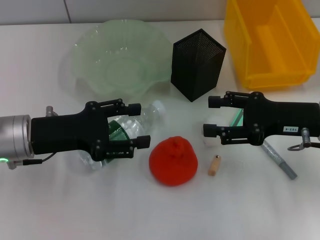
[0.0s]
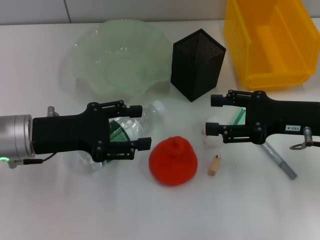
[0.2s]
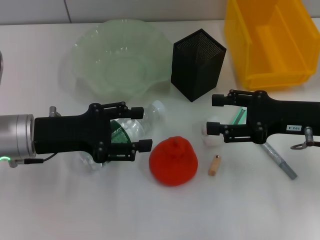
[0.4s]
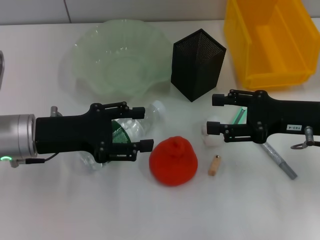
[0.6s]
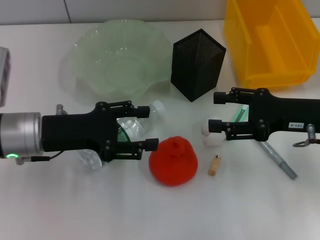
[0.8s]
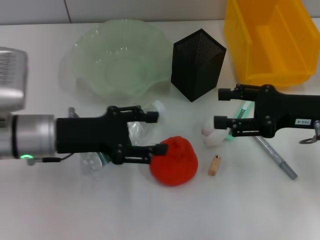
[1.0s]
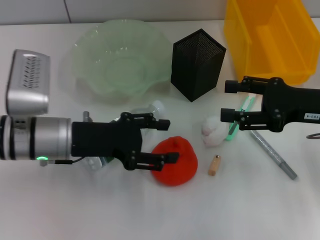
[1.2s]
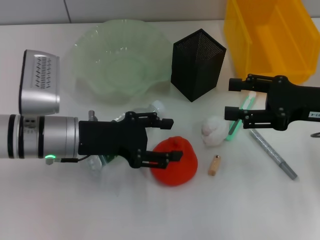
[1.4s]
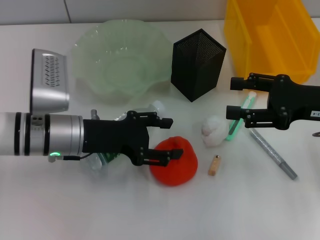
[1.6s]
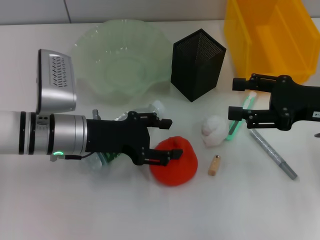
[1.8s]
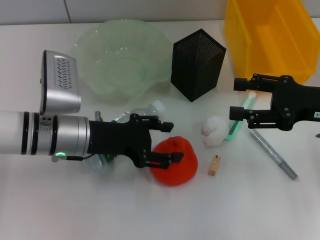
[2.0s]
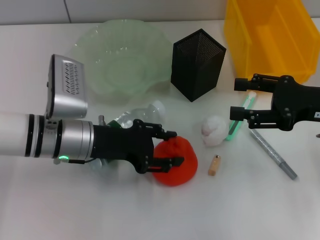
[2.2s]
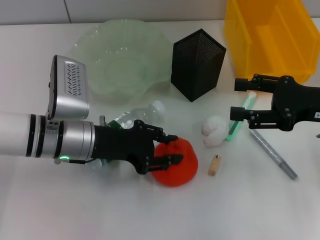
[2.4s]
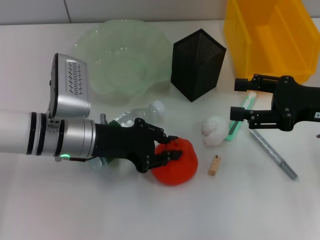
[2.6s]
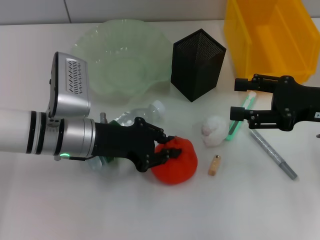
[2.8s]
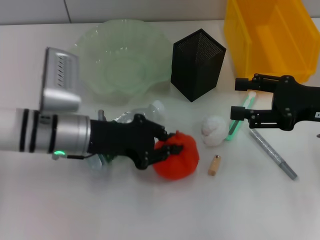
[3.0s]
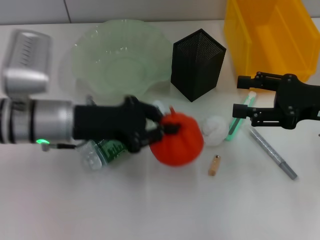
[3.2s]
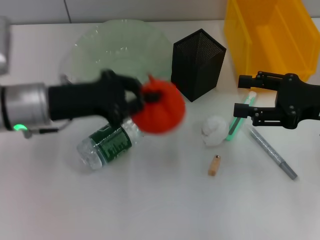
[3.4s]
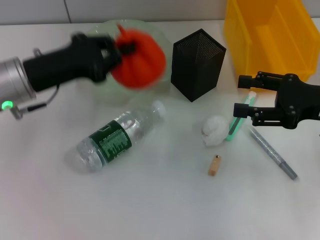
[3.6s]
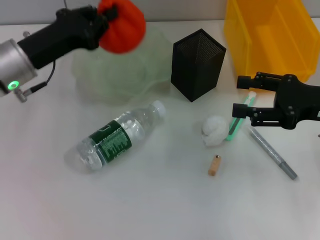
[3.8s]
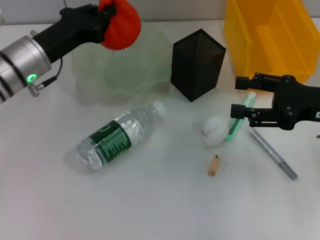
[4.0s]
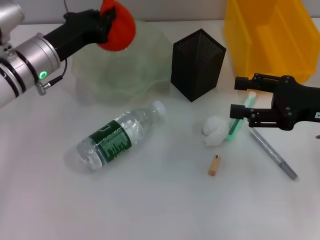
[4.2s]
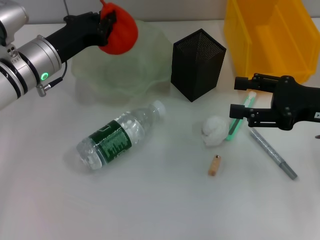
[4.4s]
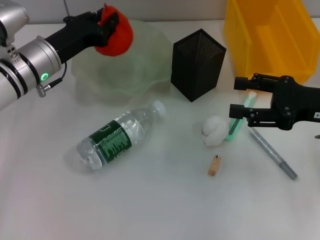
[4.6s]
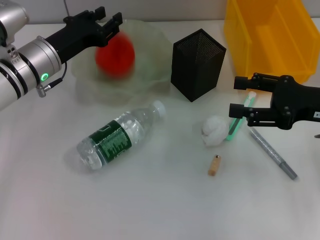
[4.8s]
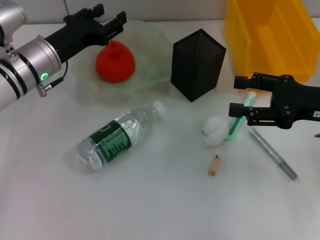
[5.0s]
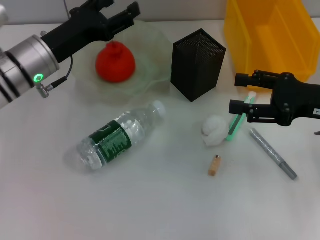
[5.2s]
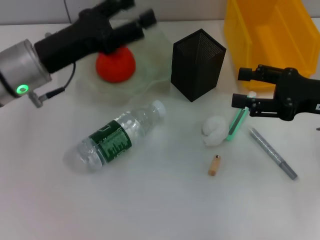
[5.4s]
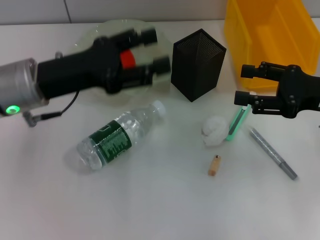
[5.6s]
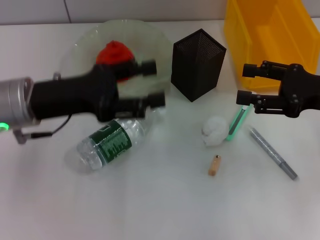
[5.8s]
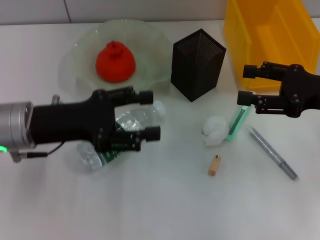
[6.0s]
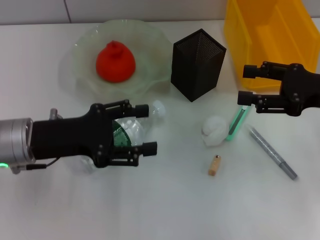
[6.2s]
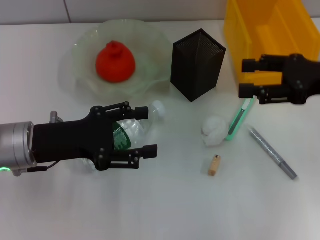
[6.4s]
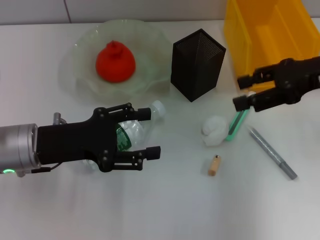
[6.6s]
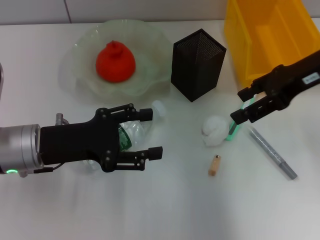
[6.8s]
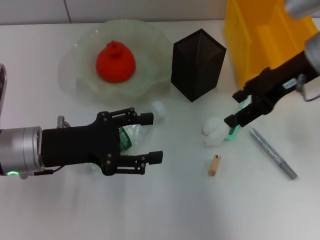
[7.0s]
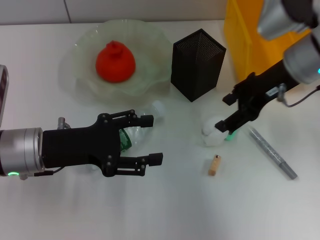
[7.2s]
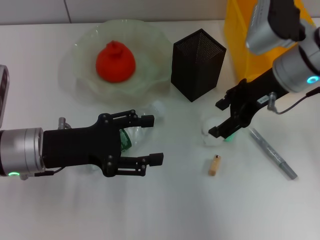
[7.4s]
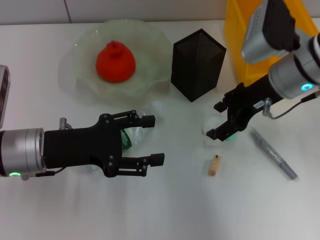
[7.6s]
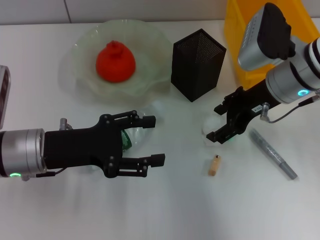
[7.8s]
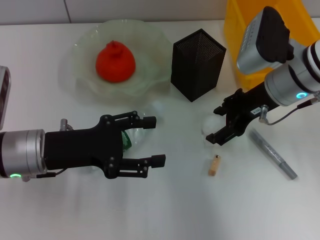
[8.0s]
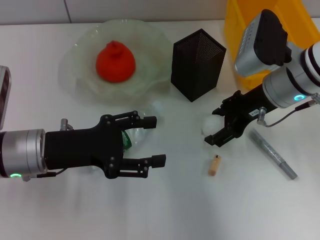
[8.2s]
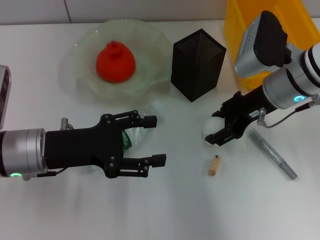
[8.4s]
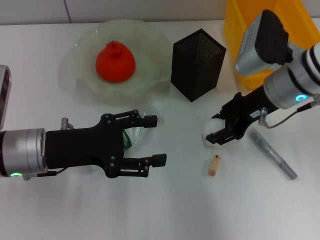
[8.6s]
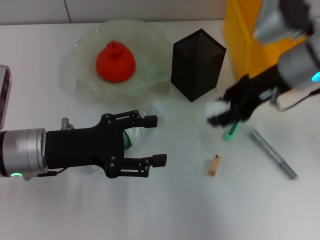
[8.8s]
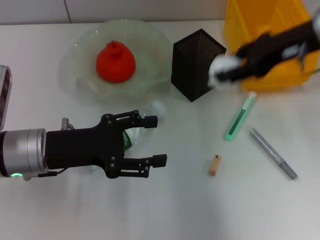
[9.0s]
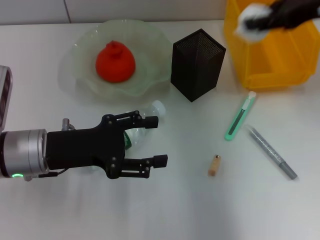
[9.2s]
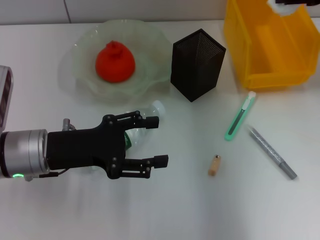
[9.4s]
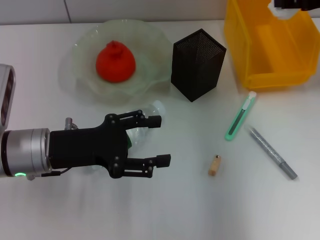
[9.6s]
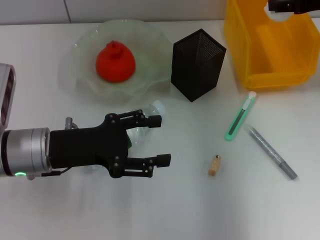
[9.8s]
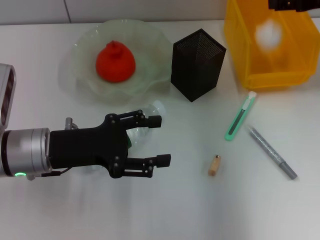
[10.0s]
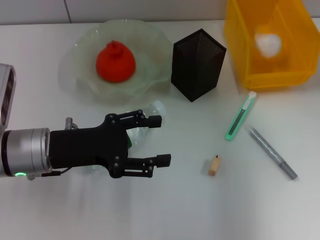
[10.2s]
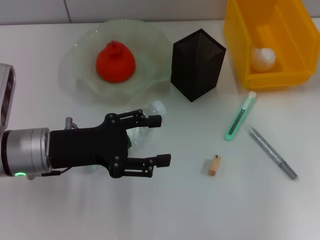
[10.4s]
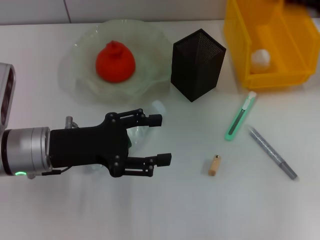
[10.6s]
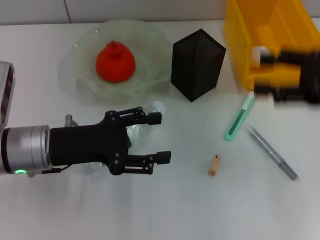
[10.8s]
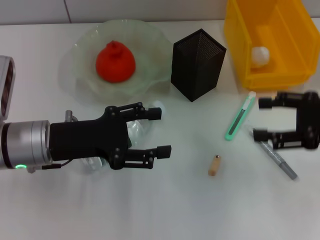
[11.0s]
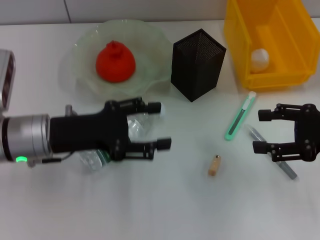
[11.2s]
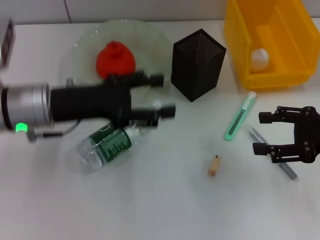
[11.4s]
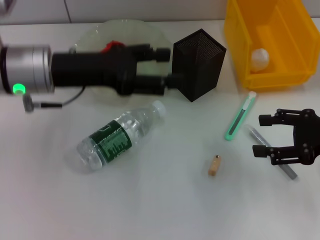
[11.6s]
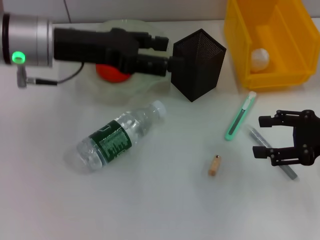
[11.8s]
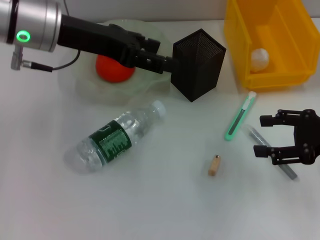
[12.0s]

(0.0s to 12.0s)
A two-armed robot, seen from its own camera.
Step, 0.0s - 2.8s: Grab the orange with the left hand.
Step, 3.0s - 4.8s: Place the orange into the fruit bowl with the left hand.
Step, 5.0s - 8.4s: Grab the paper ball with the right hand.
Step, 8.6s - 10.2s: Place the paper ball into the trash can with the right hand.
0.0s - 1.6s: The left gripper is displaced to the right by roughly 5 cm.
1.6s - 3.0s: The left gripper closes its fingers.
3.0s - 4.4s: The left gripper is displaced forward by about 10 cm.
4.4s - 6.0s: The left gripper is displaced backward by some 10 cm, and opens.
6.0s - 7.6s: The right gripper moves to the left and forward, approximately 15 cm.
7.6s - 9.0s: The right gripper goes some 10 cm upward.
9.0s - 10.4s: The right gripper shifts approximately 10 cm to the right, and opens its fingers.
10.4s - 12.0s: The right gripper heads downward and backward, covering about 15 cm; the left gripper is displaced upward and forward by some 15 cm.

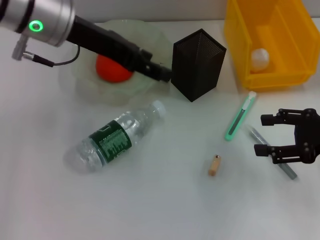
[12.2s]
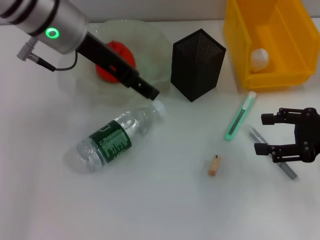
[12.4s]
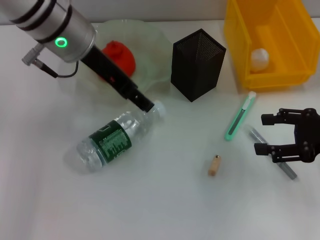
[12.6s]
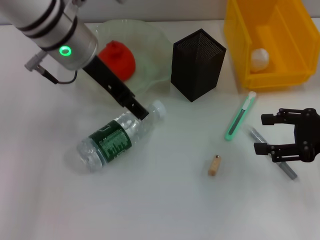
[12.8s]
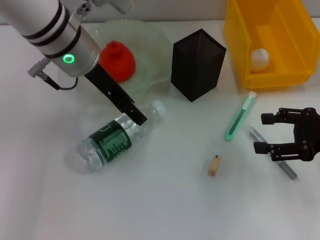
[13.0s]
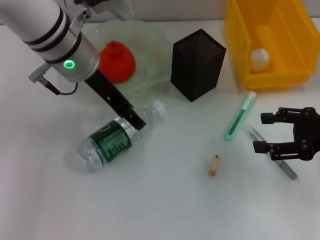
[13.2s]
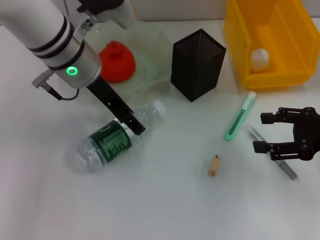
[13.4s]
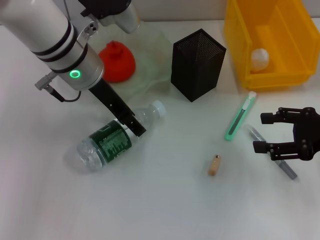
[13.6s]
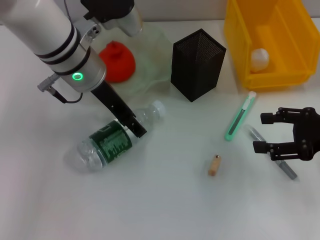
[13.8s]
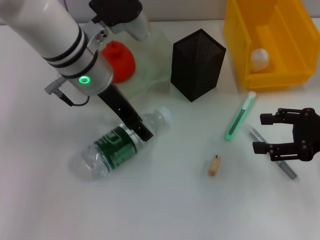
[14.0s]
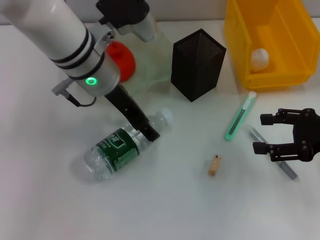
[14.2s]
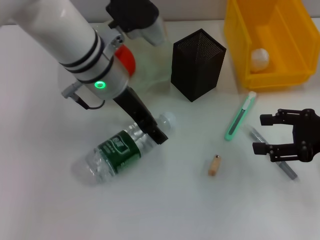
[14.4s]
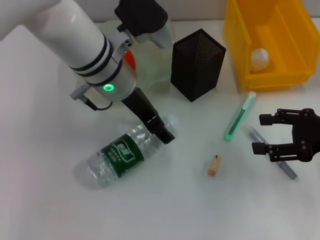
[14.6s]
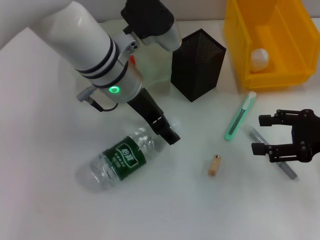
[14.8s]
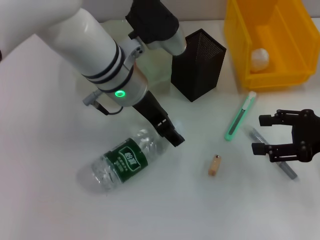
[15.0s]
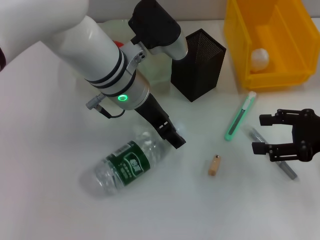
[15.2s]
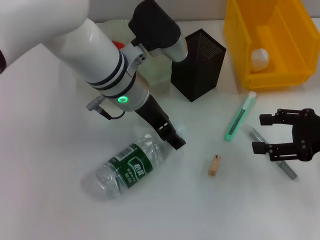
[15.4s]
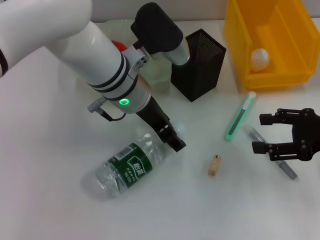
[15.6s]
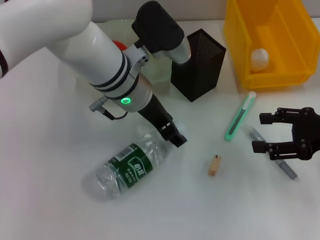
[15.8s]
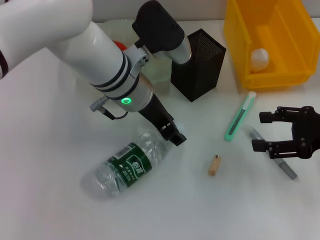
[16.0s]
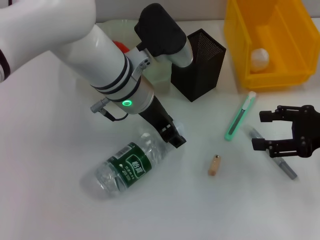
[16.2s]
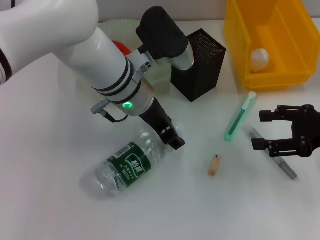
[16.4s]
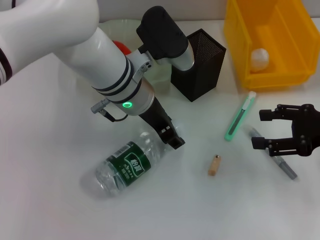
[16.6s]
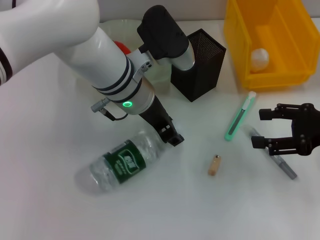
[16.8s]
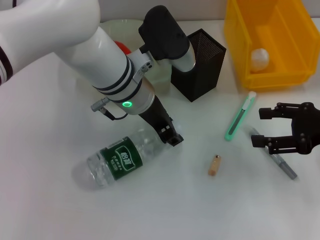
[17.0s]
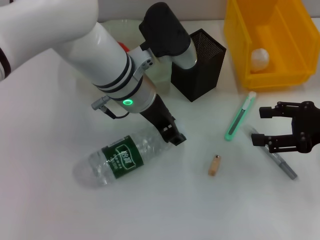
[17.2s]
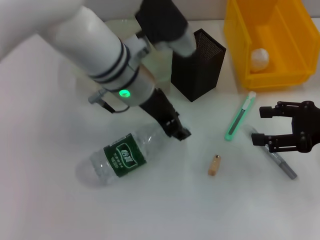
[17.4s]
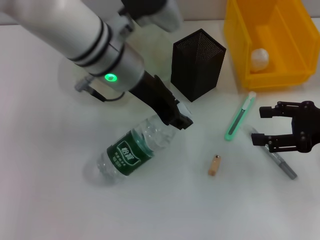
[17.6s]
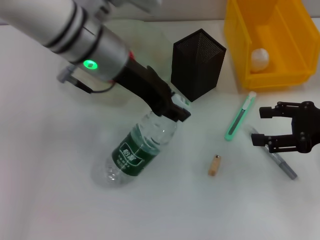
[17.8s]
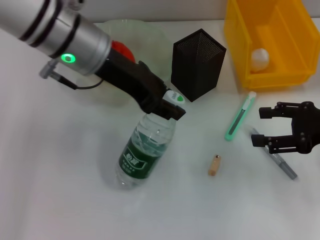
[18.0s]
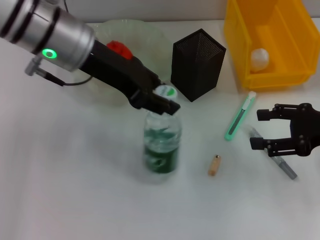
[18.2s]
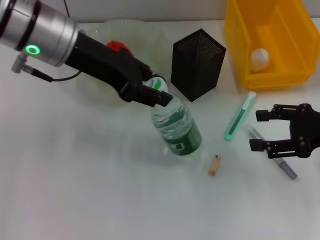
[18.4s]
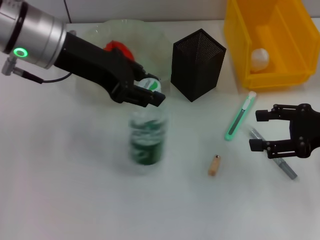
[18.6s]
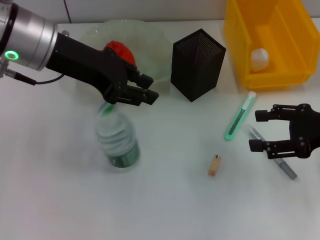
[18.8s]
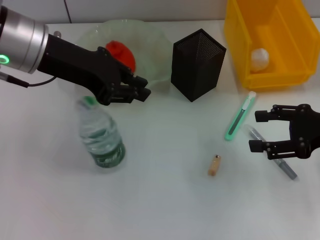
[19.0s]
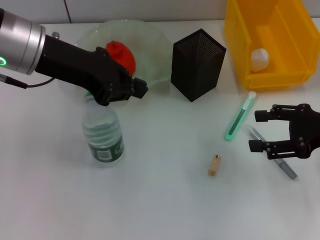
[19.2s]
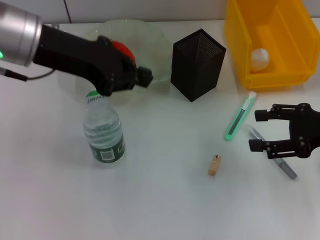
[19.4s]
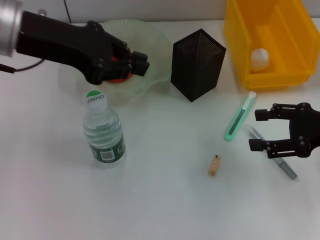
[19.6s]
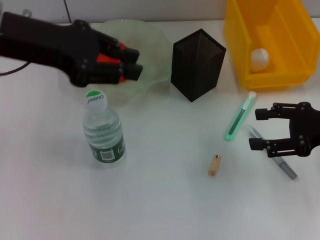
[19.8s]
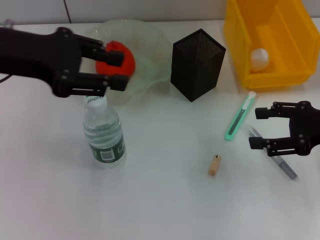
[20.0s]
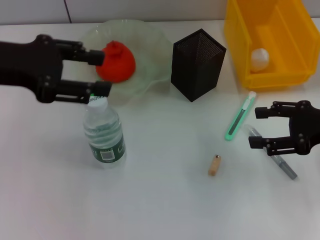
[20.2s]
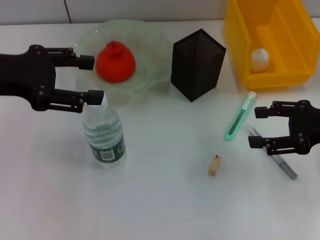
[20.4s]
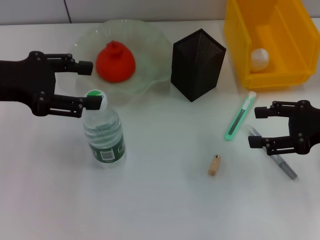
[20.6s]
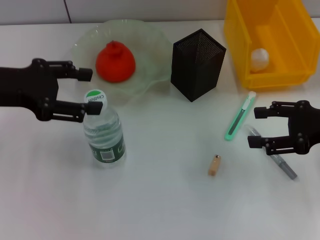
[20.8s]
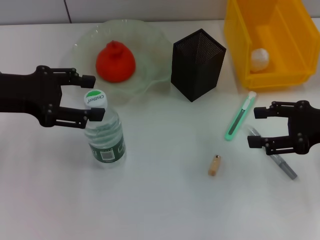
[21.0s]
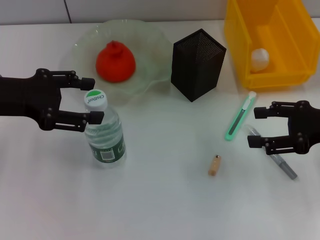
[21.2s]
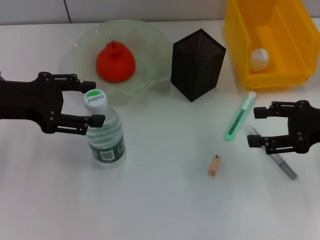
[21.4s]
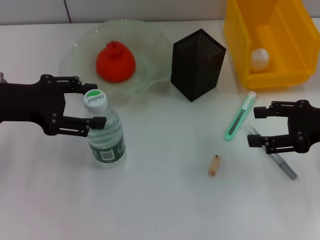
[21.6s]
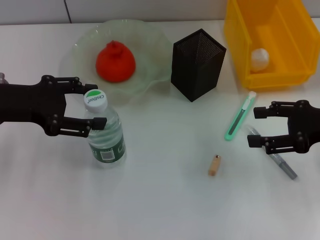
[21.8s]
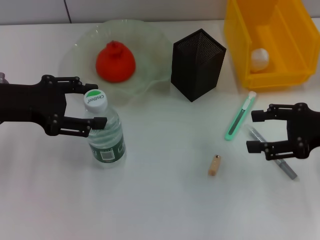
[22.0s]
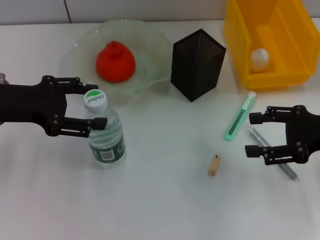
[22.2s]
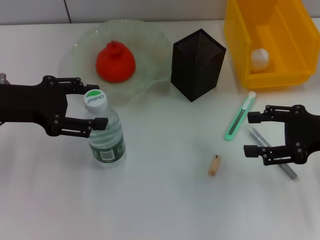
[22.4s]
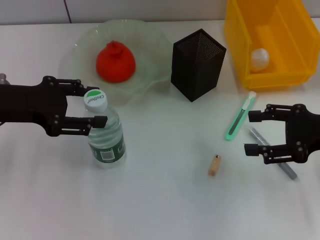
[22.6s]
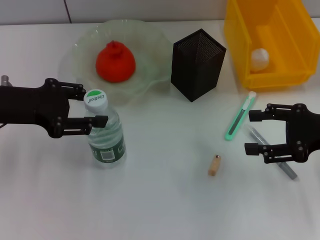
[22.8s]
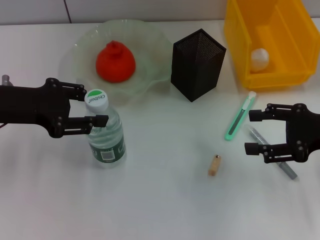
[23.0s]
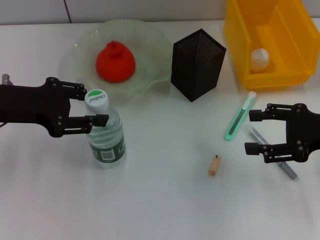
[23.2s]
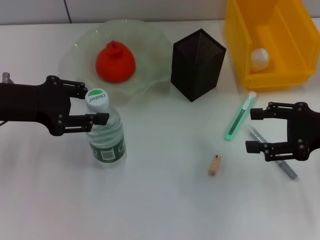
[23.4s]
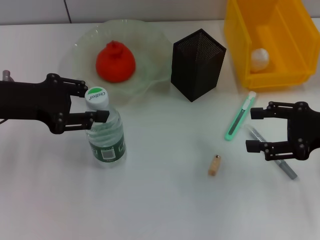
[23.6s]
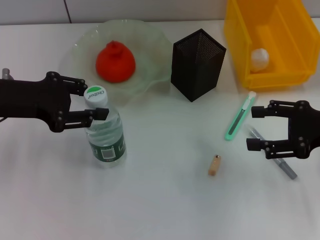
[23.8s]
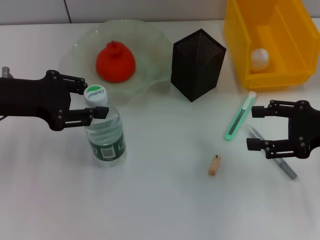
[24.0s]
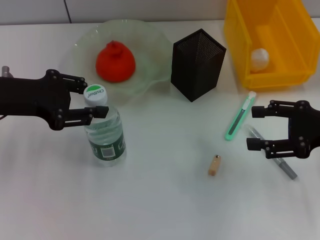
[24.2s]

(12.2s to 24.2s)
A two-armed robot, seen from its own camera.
Step, 12.2s - 17.0s: Grab the water bottle with the left hand.
12.2s - 13.8s: The left gripper goes about 5 cm downward.
13.8s - 15.2s: The left gripper moves to the right, approximately 5 cm.
15.2s - 16.6s: Both grippers stay put.
16.6s - 18.2s: The left gripper heads upward and to the left, covering about 10 cm.
18.2s - 19.8s: The left gripper goes about 10 cm to the left, and closes its fingers.
19.8s - 21.2s: The left gripper is displaced downward and to the left by about 10 cm, and opens its fingers.
21.2s - 22.6s: The grippers make only small movements.
22.6s - 24.2s: The left gripper closes.
